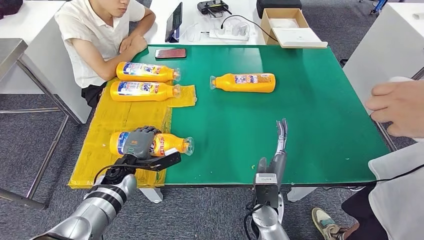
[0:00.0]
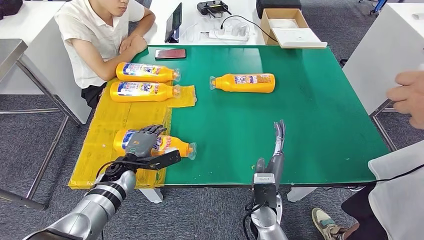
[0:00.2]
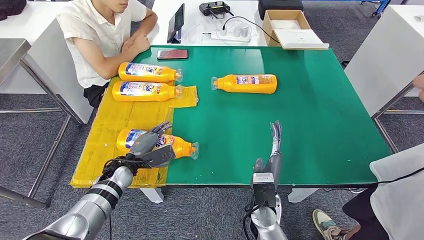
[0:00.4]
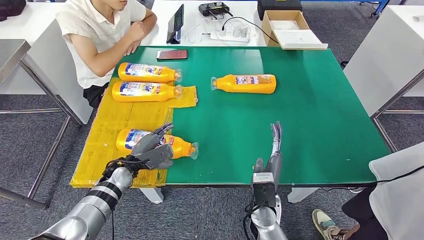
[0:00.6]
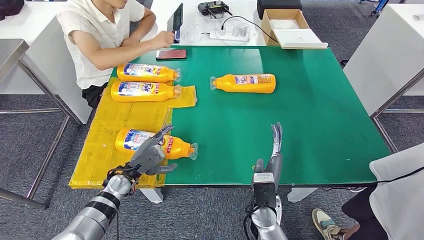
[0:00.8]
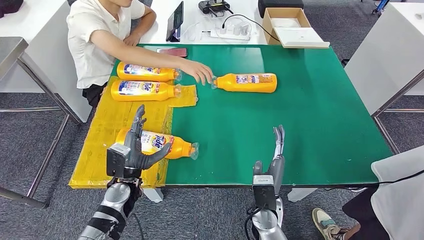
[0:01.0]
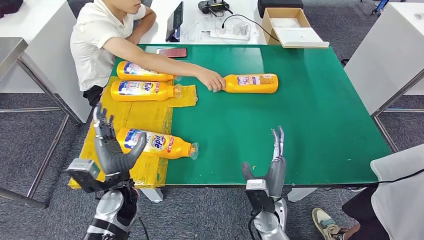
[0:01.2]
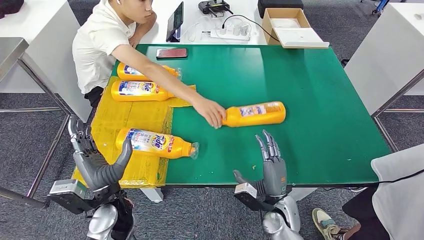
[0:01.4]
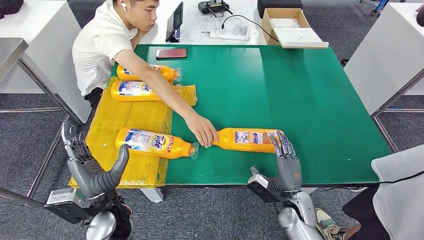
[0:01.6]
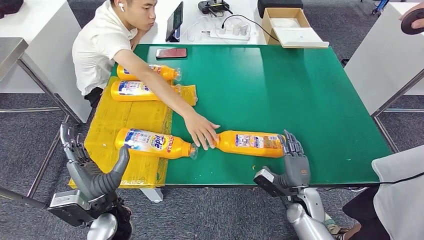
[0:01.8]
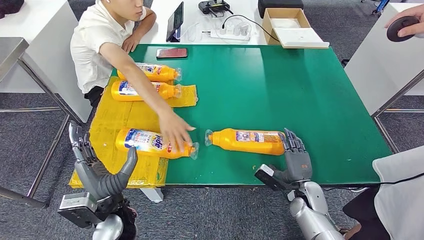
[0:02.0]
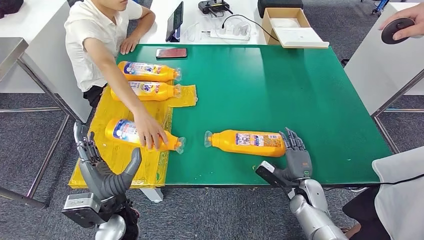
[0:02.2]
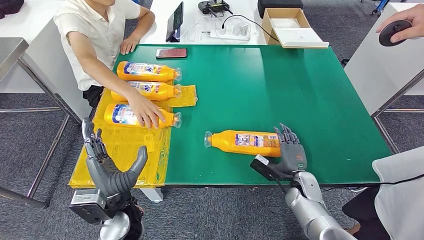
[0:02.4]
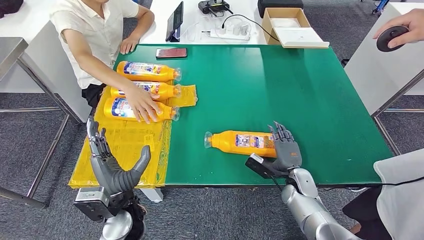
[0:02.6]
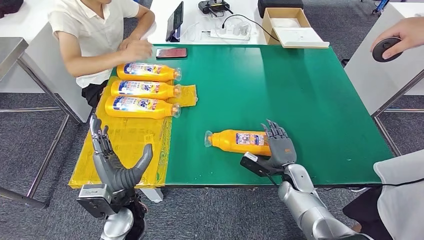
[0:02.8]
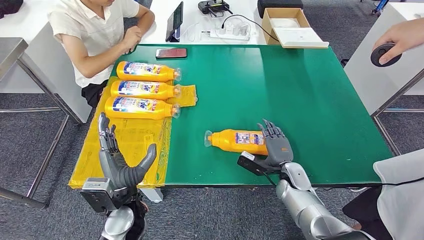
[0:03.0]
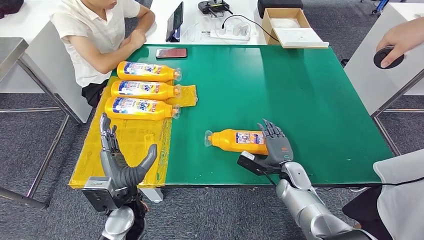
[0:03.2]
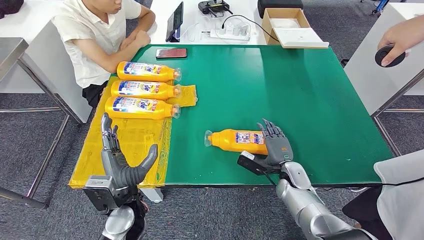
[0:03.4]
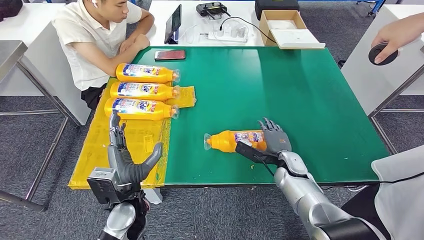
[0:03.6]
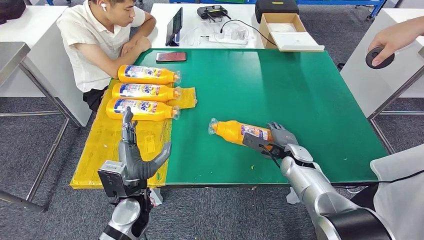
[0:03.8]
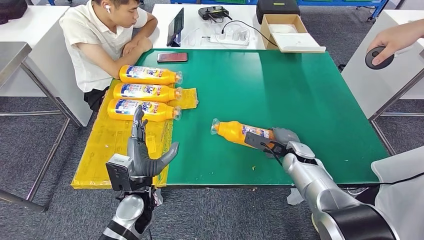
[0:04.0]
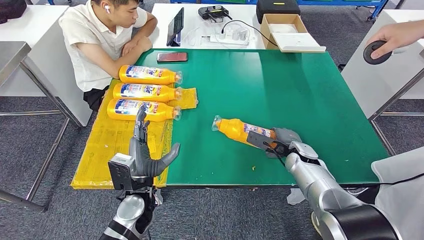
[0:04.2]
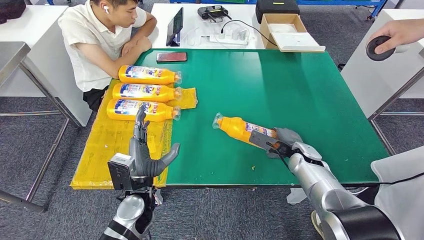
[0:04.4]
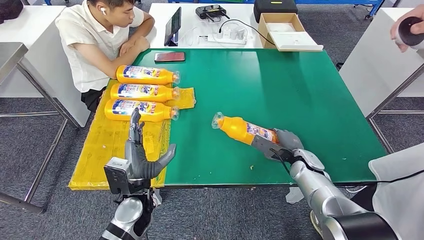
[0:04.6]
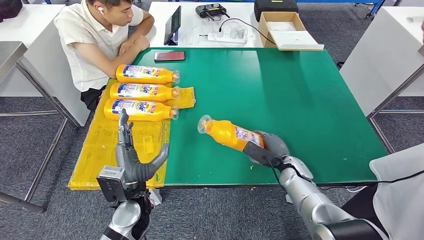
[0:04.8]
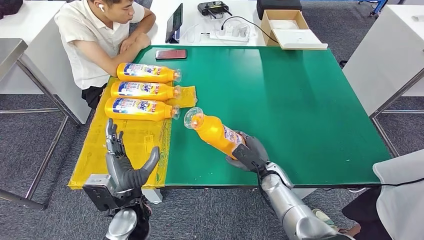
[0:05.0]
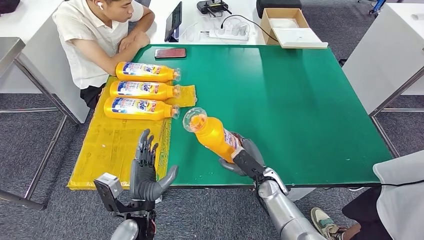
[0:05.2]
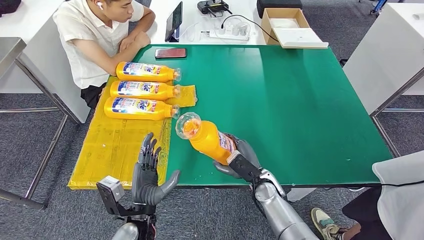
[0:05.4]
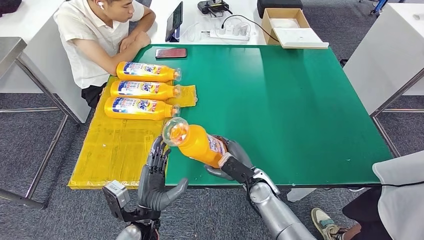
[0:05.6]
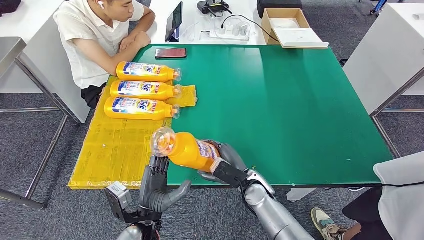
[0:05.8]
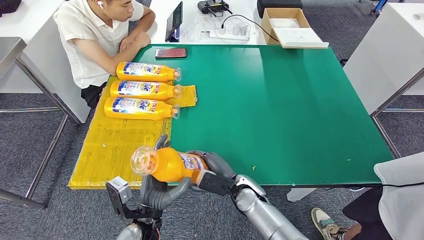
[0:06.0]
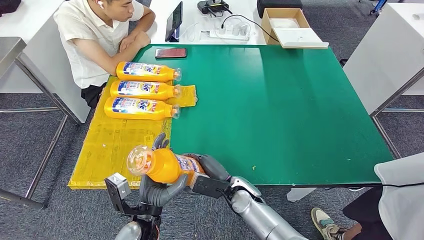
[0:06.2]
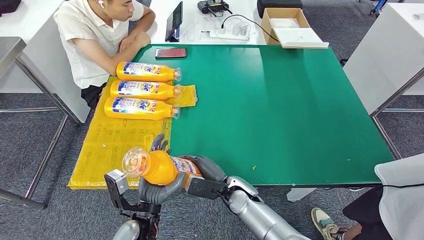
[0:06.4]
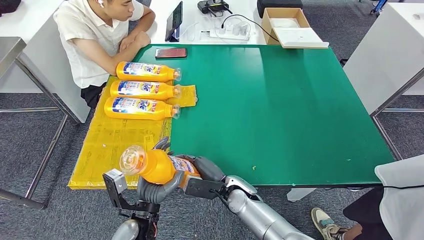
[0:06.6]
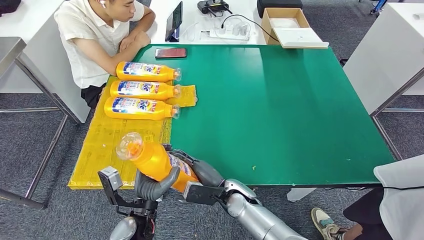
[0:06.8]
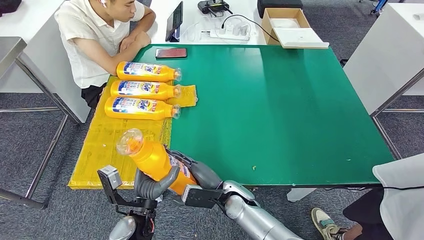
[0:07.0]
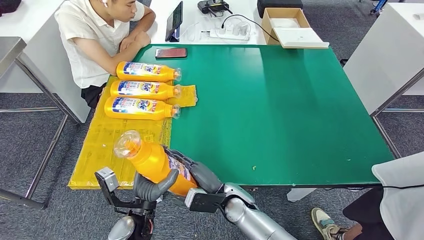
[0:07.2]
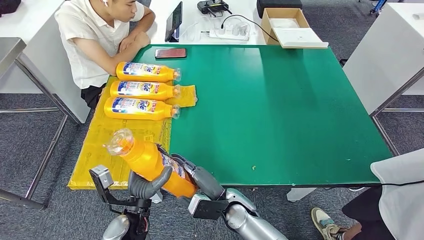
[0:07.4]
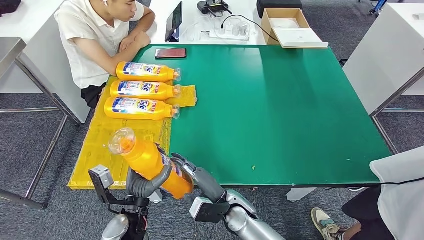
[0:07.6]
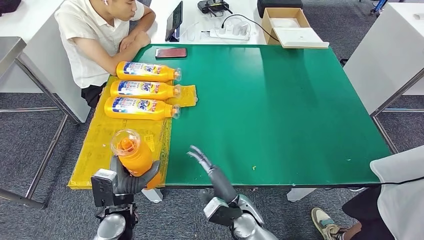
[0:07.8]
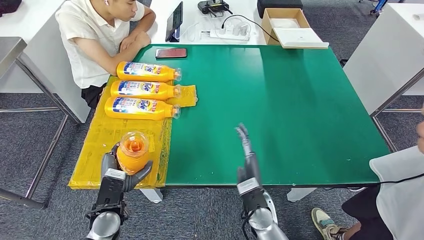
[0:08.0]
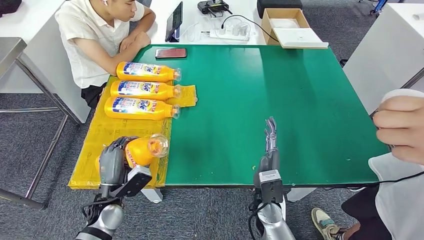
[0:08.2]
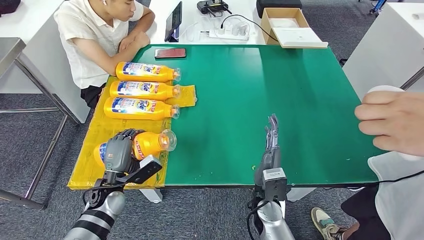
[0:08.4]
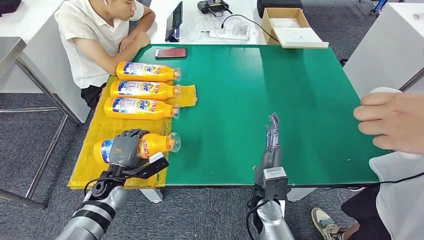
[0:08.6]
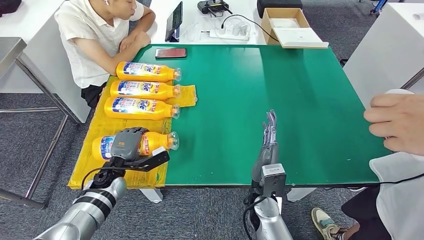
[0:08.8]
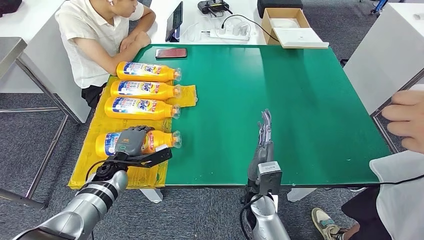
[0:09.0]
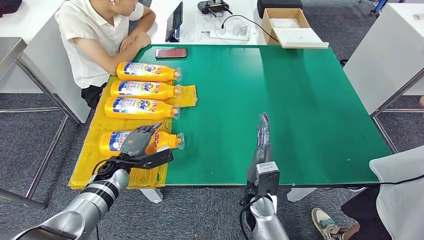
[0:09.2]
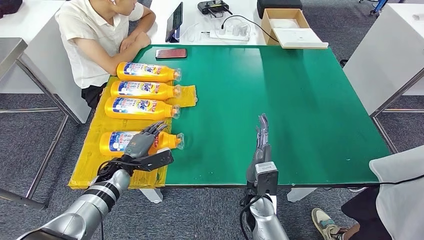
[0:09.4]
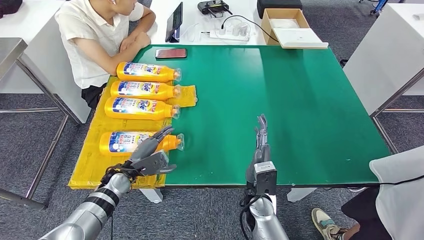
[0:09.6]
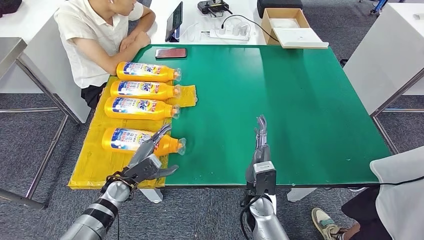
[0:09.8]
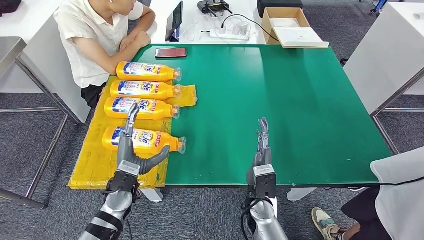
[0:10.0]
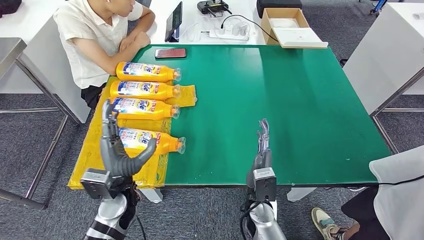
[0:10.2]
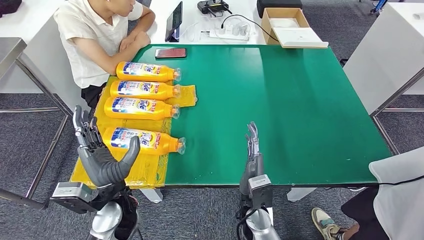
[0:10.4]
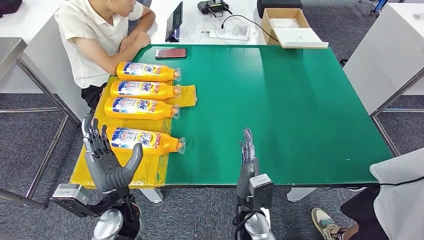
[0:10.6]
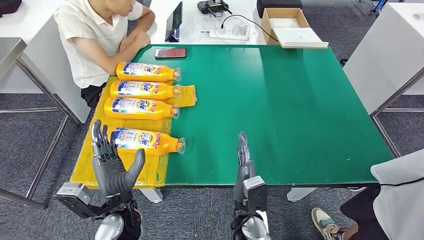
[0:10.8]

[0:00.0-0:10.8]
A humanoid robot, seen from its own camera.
Step, 0:02.0 to 0:05.8: Pick up the bottle from the table.
Step, 0:06.0 to 0:10.8: Flip the bottle to face forward.
0:06.2 to 0:07.8: The left hand moves to the left, roughly 5 cm. The right hand heads backward, covering about 5 cm.
0:07.8 to 0:09.2: The right hand shifts by approximately 5 cm. The left hand moves forward, about 15 cm.
0:09.2 to 0:10.8: The left hand heads backward, to the right and upward, covering about 15 cm. The right hand ends up some 5 cm from where it was.
